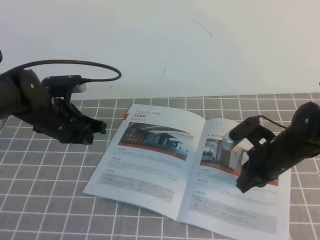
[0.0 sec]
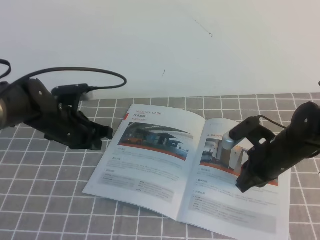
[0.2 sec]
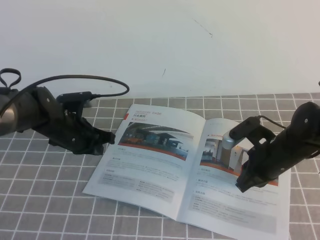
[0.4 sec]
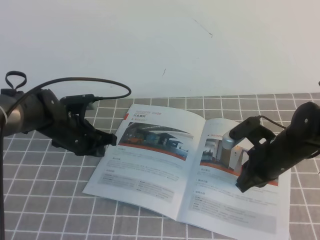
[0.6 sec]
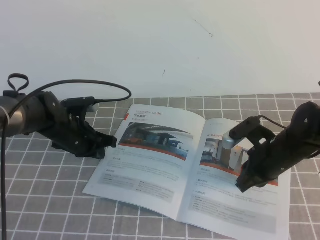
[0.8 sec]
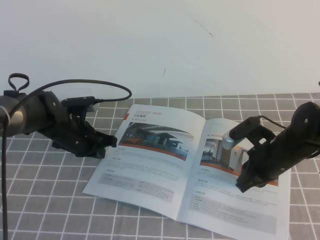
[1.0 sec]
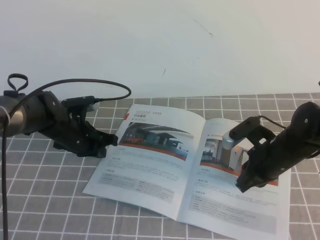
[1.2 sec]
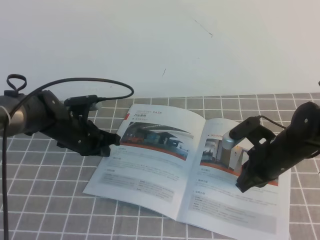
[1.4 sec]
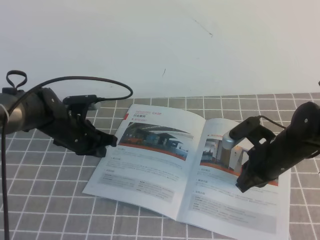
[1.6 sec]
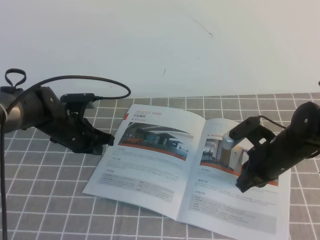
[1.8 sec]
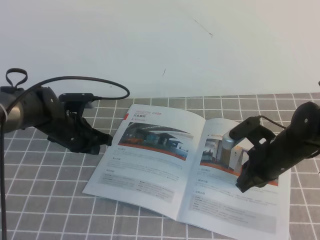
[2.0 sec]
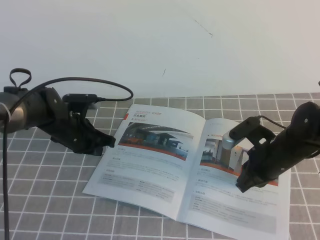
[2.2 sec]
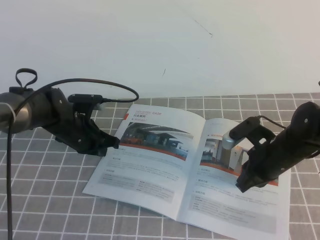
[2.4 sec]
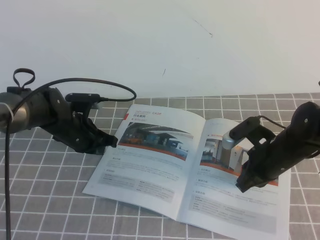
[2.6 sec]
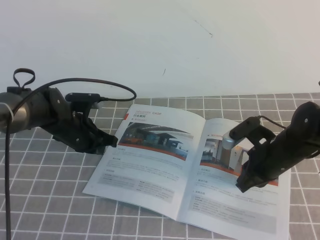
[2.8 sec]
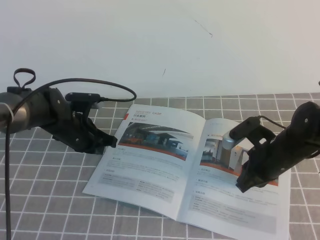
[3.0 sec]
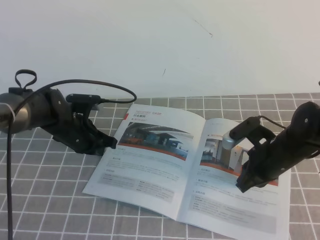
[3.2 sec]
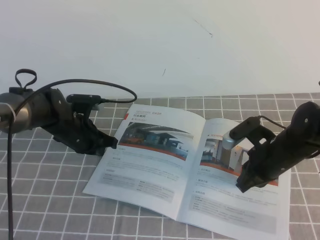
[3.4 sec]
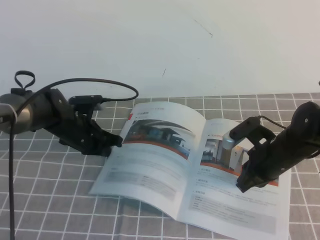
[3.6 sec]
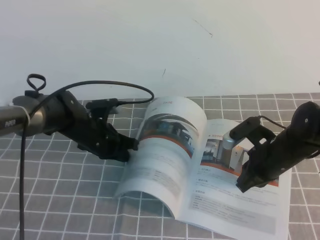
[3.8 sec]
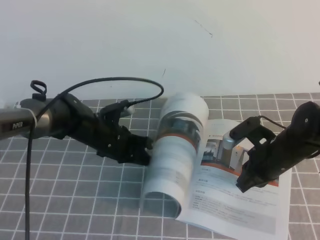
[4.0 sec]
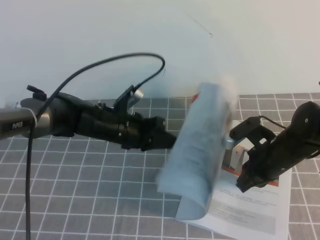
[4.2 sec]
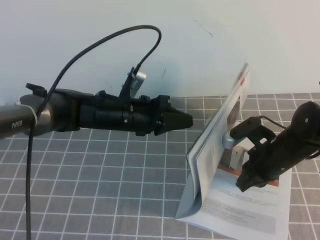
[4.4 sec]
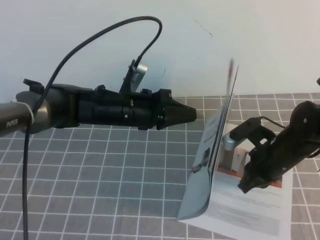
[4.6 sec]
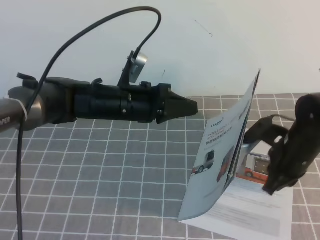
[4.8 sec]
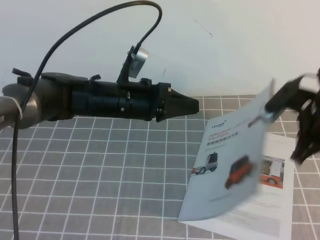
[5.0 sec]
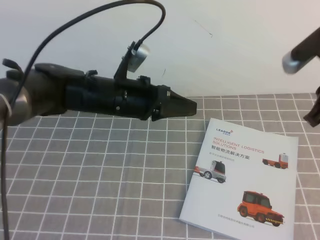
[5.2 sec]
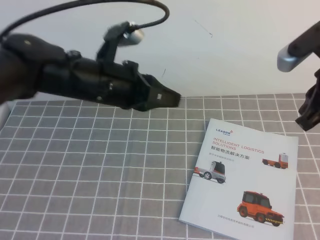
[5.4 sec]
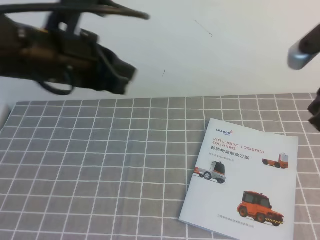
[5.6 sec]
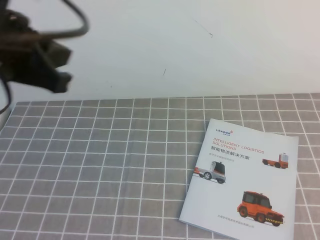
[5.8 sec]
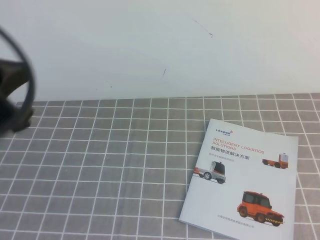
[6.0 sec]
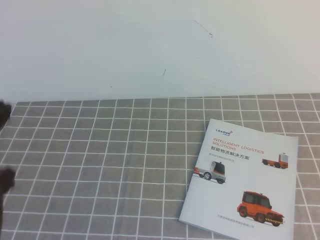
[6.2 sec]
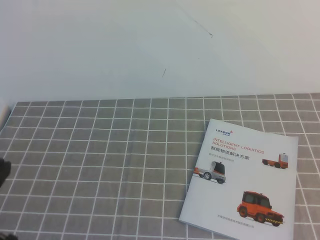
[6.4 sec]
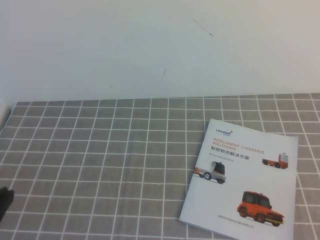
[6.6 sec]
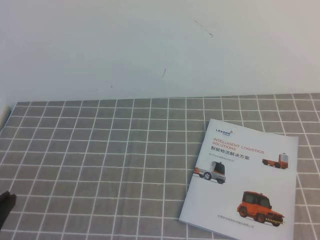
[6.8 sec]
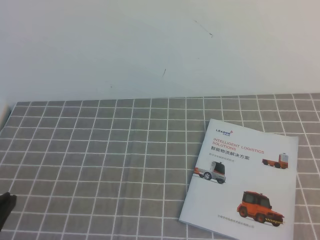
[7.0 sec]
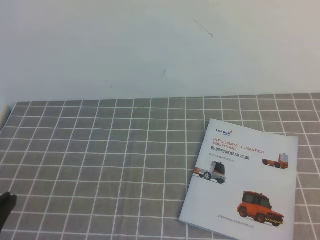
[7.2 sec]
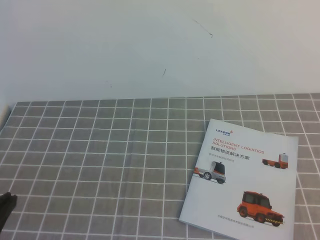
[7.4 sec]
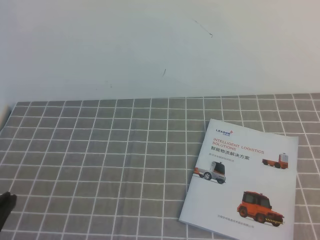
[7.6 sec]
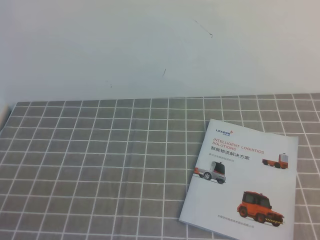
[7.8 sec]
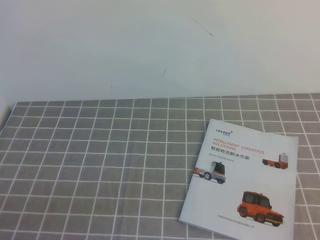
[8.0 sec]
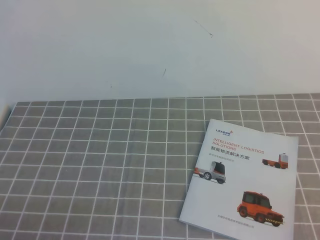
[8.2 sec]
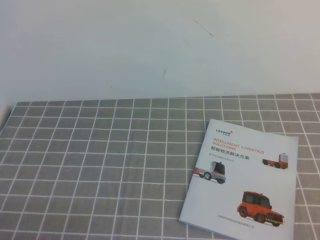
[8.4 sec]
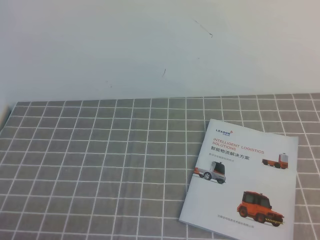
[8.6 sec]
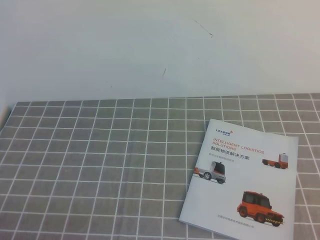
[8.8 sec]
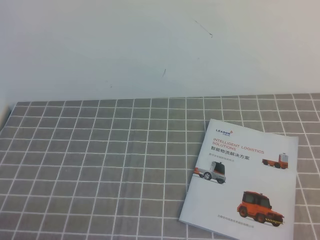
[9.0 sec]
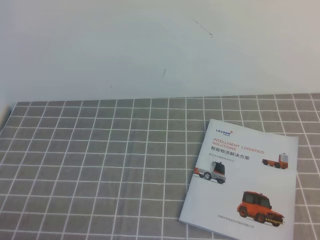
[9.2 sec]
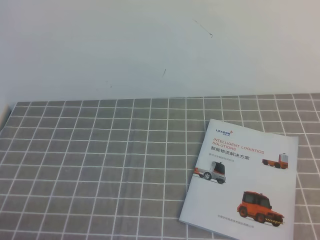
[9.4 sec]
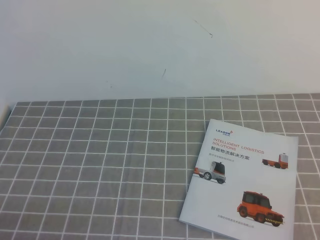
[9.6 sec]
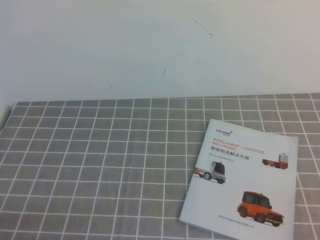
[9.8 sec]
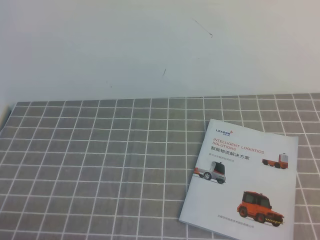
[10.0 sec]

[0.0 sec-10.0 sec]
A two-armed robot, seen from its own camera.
Task of the whole recording: on the grey tablecloth, hold the book with one hand and close it with the other.
0.0 sec to 1.4 sec: The left gripper moves downward, some 10 cm.
1.4 sec to 2.8 sec: There are only small adjustments of the grippers.
2.8 sec to 4.2 sec: The left gripper moves to the right, approximately 5 cm.
4.2 sec to 5.8 sec: The left gripper heads upward and backward, covering about 25 cm. Meanwhile the right gripper travels upward by about 25 cm.
5.8 sec to 7.2 sec: The left gripper shifts roughly 25 cm backward, downward and to the left; the right gripper moves backward and downward, some 25 cm.

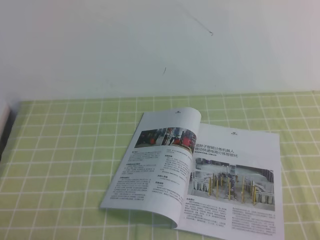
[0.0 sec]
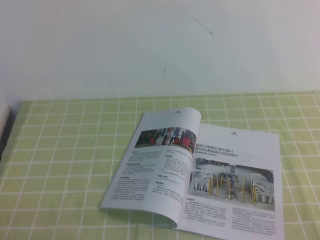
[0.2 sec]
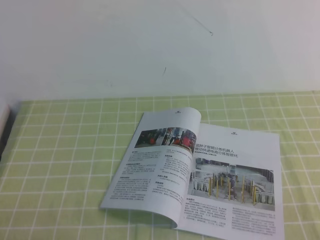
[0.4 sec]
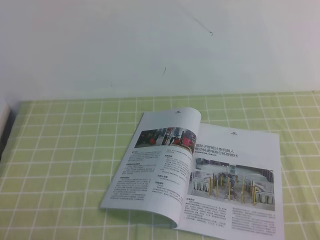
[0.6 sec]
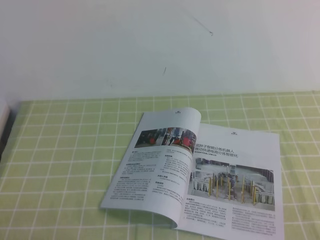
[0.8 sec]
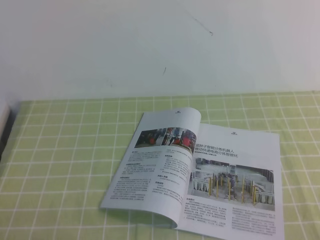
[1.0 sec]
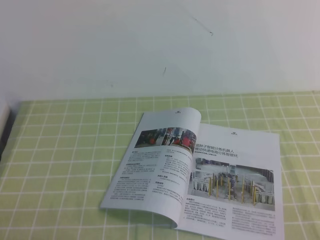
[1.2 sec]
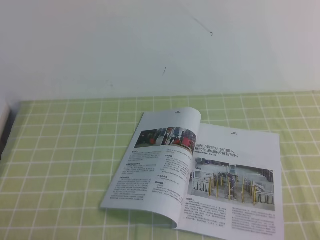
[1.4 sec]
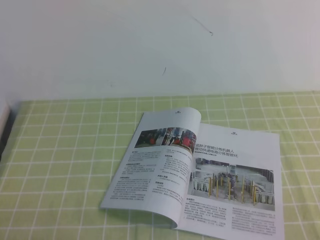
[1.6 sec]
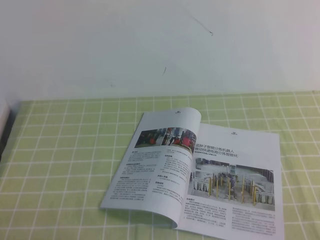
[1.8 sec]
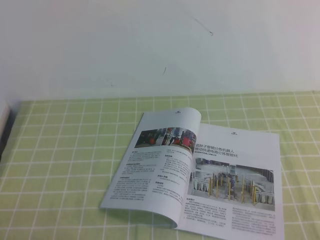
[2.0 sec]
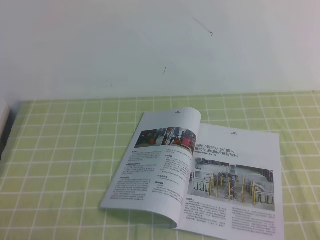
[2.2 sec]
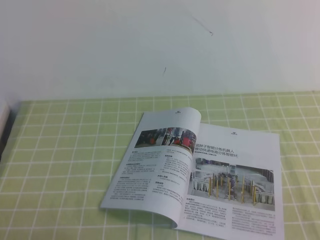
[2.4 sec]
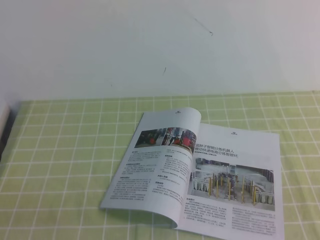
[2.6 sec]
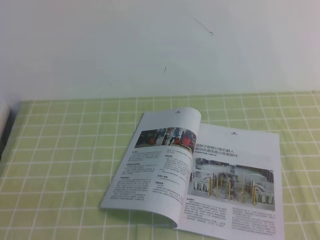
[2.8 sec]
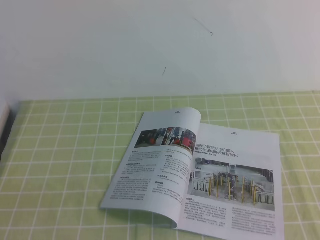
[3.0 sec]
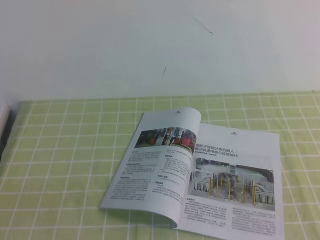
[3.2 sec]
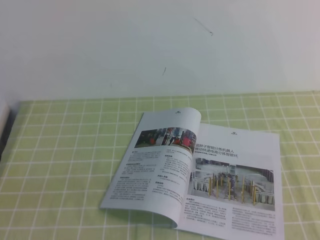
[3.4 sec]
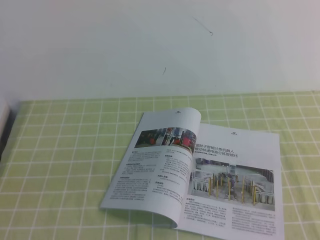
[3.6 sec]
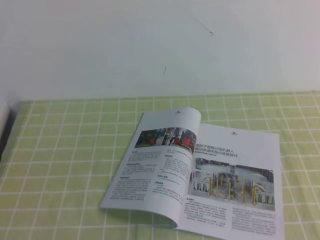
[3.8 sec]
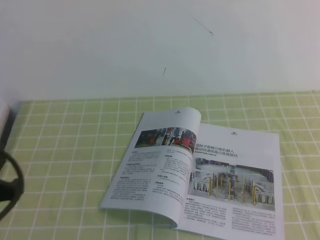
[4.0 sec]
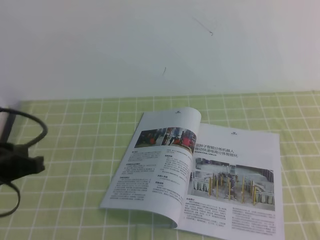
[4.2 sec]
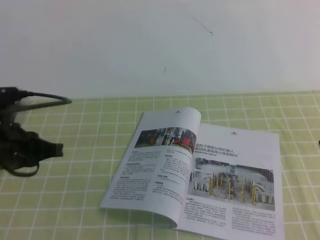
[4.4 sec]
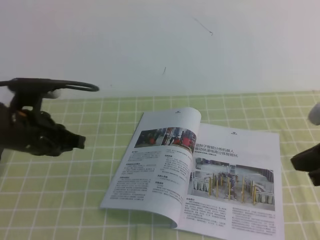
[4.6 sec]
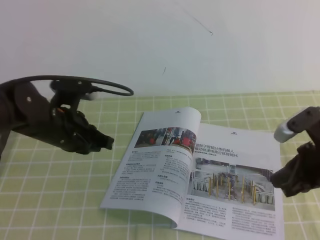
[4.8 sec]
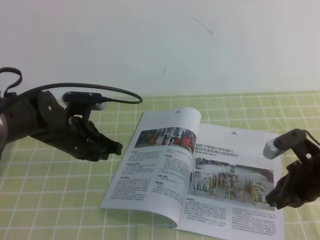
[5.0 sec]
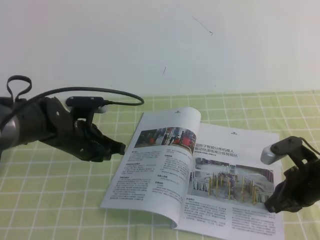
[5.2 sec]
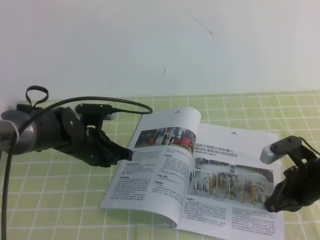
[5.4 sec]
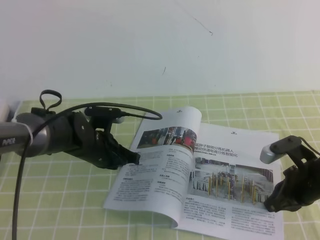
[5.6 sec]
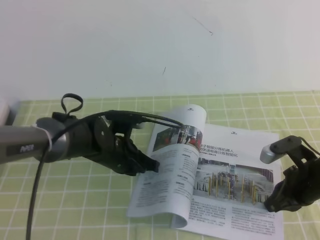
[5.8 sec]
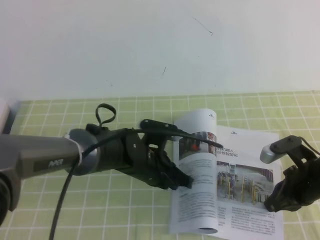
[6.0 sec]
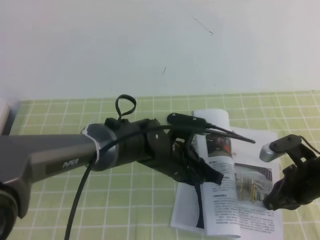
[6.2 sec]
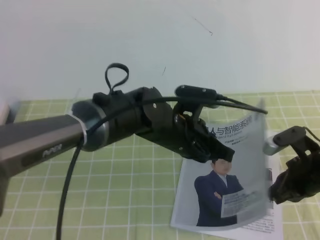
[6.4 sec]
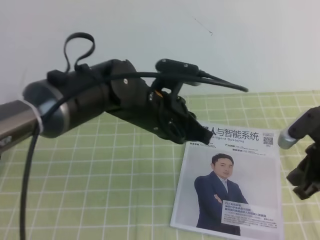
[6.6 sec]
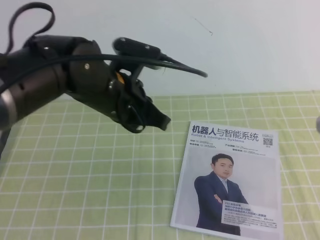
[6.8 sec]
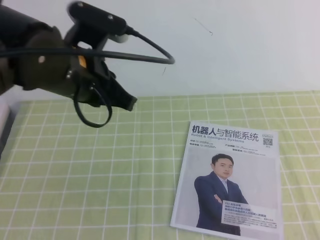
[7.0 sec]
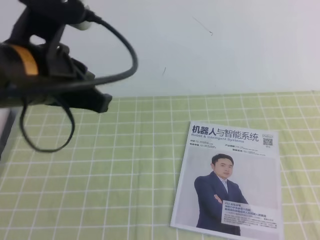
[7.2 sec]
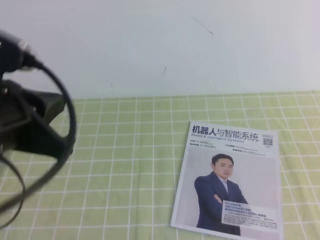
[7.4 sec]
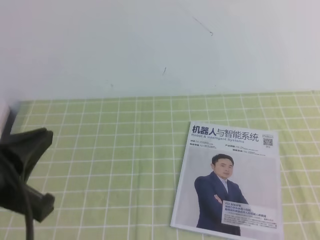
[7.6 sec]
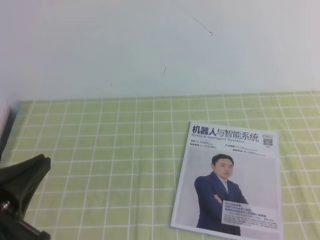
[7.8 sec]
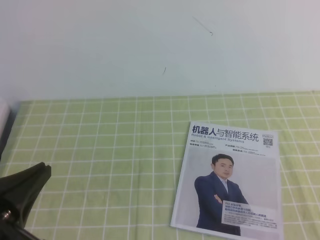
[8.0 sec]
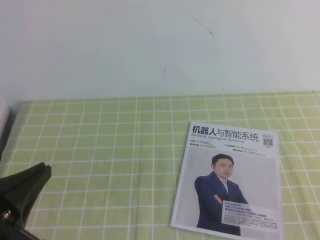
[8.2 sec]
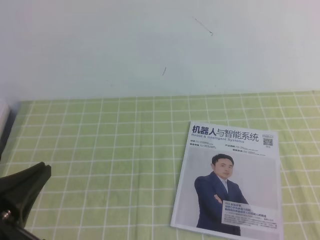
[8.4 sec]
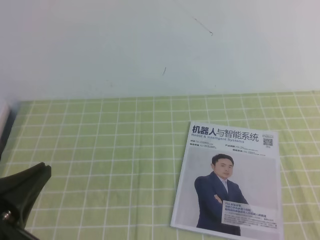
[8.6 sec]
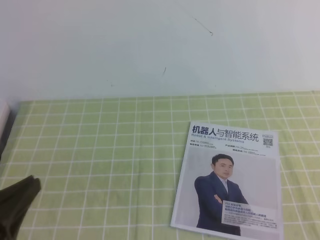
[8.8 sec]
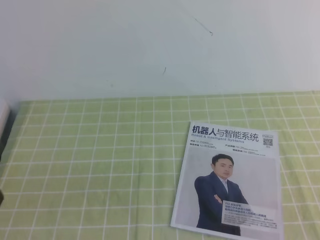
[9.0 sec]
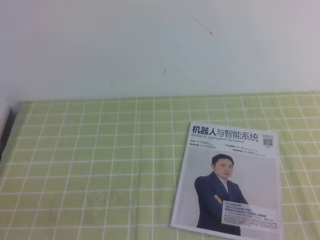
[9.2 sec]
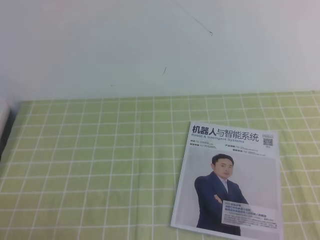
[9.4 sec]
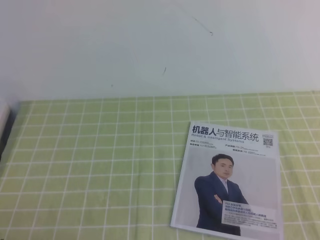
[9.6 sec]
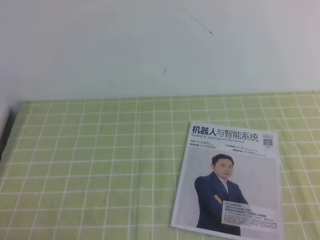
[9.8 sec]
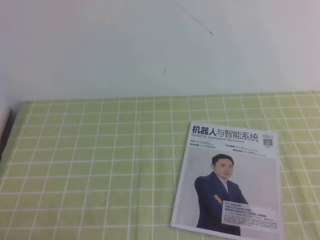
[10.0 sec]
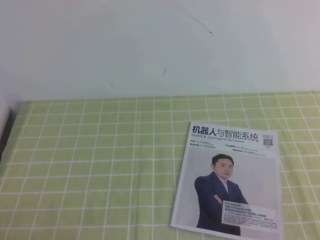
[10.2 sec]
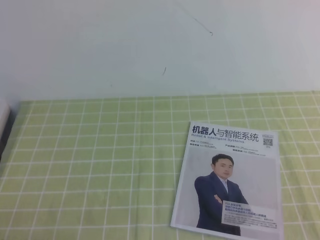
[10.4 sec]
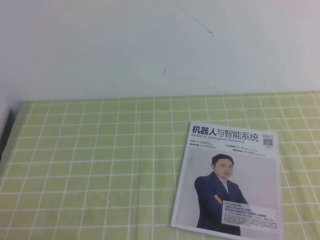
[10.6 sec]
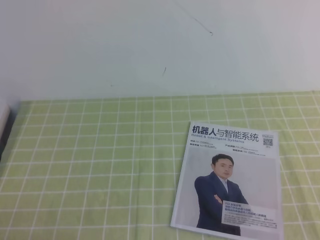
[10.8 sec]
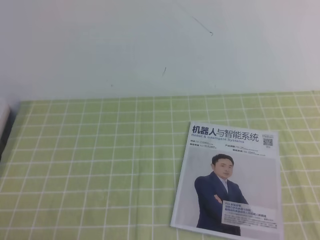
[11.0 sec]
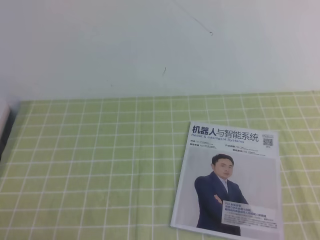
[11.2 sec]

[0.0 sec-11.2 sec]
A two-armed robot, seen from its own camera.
Task of the whole recording: on the green tablecloth, hold the book with one hand and close it with the other.
Step, 0.0 sec to 11.2 sec: Close the open book.
0.0 sec to 1.6 sec: The two grippers keep their place.
3.2 sec to 4.8 sec: Both grippers move forward, roughly 25 cm.
4.8 sec to 6.4 sec: The right gripper is displaced downward by roughly 5 cm. The left gripper travels to the right by about 20 cm.
6.4 sec to 8.0 sec: The right gripper heads backward and upward, covering about 25 cm. Meanwhile the left gripper is displaced to the left and backward by approximately 30 cm.
8.0 sec to 9.6 sec: The left gripper is displaced downward by some 10 cm.
